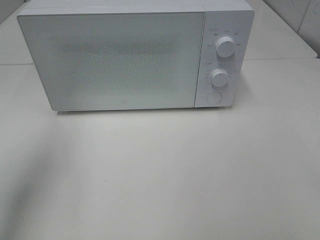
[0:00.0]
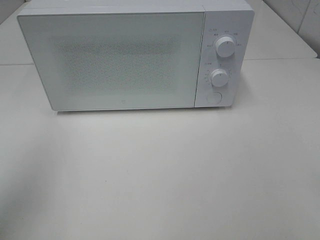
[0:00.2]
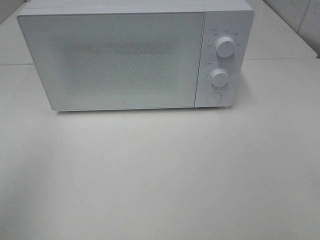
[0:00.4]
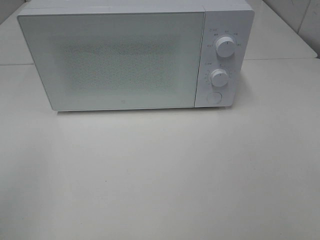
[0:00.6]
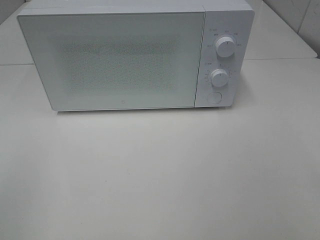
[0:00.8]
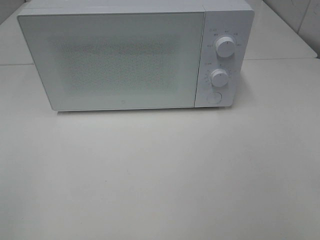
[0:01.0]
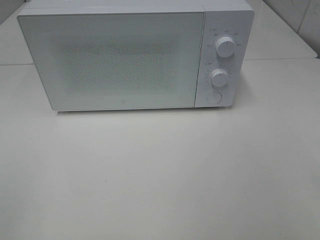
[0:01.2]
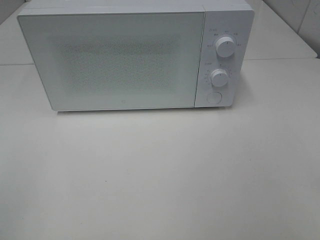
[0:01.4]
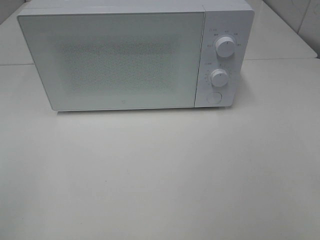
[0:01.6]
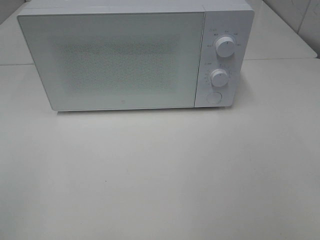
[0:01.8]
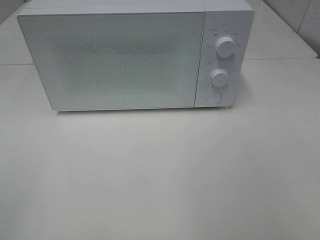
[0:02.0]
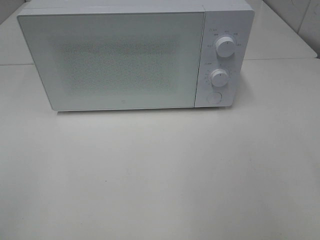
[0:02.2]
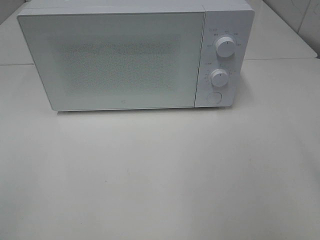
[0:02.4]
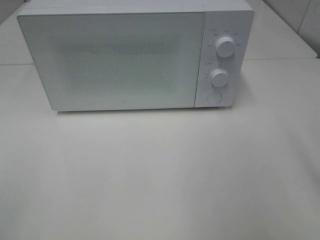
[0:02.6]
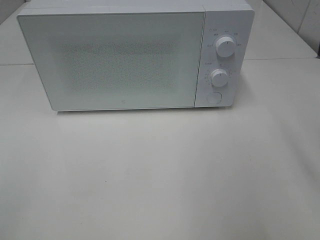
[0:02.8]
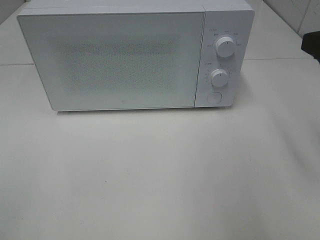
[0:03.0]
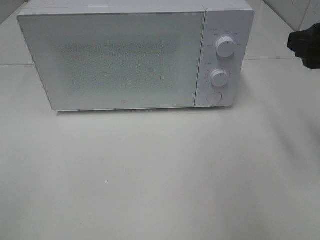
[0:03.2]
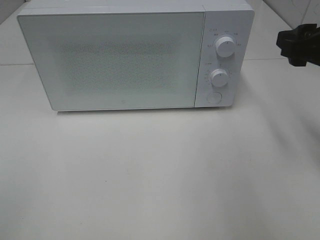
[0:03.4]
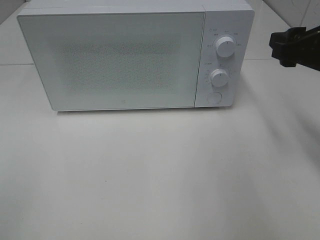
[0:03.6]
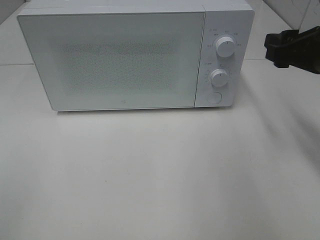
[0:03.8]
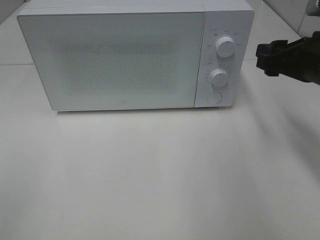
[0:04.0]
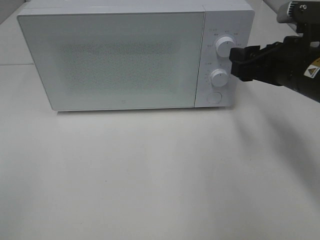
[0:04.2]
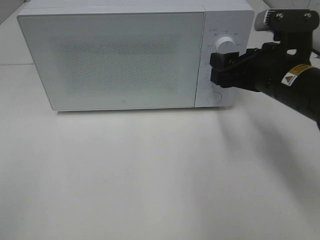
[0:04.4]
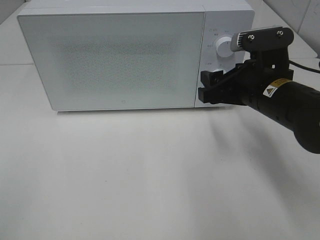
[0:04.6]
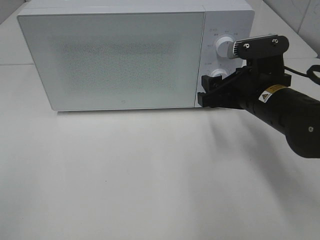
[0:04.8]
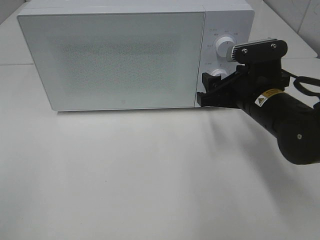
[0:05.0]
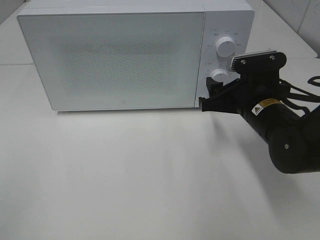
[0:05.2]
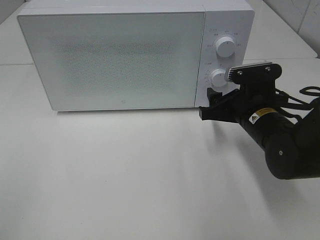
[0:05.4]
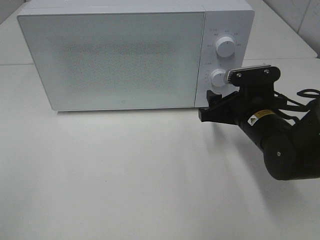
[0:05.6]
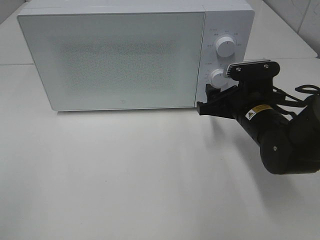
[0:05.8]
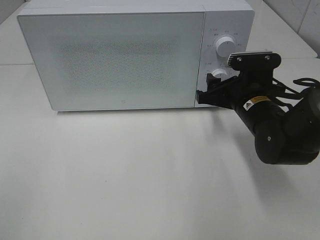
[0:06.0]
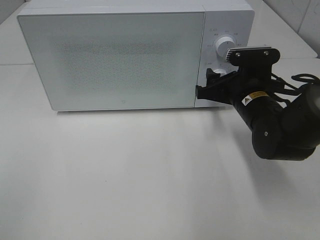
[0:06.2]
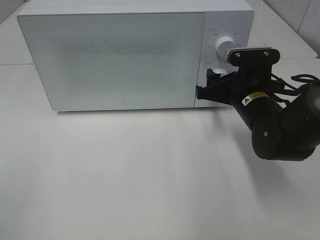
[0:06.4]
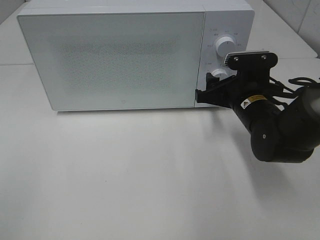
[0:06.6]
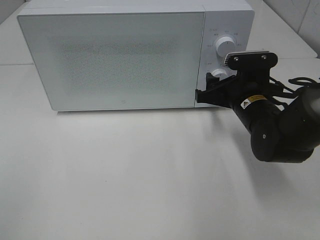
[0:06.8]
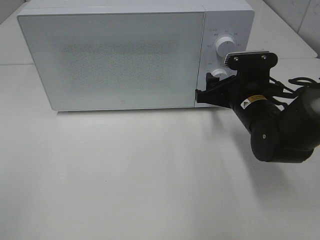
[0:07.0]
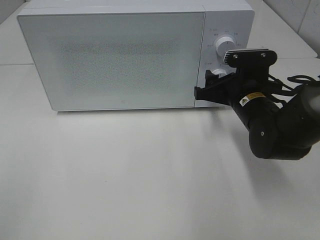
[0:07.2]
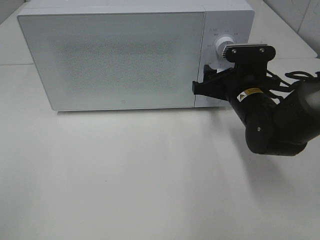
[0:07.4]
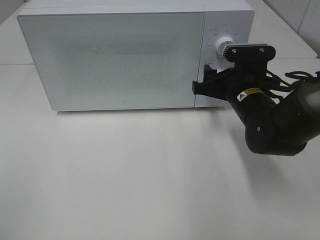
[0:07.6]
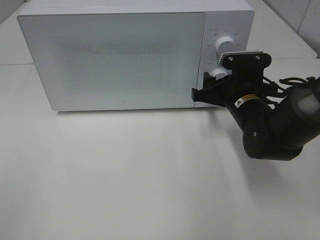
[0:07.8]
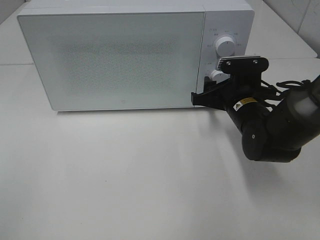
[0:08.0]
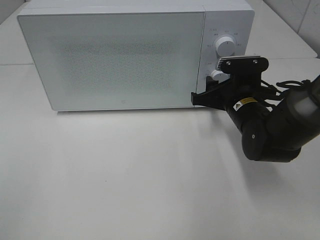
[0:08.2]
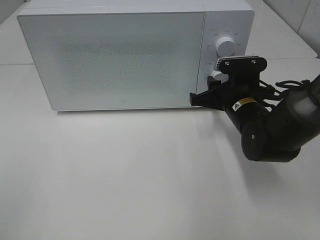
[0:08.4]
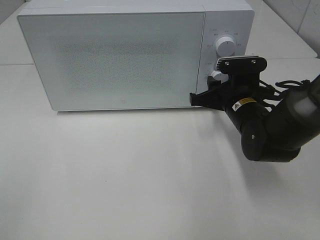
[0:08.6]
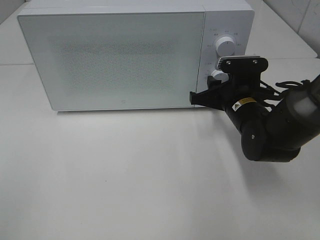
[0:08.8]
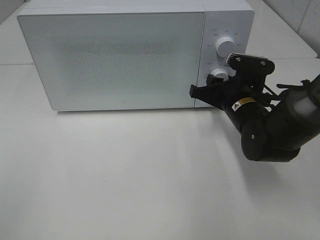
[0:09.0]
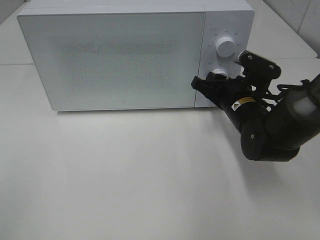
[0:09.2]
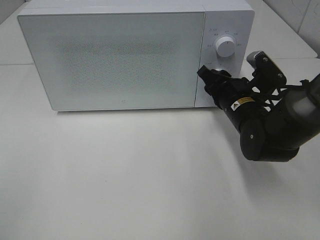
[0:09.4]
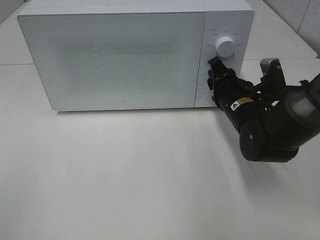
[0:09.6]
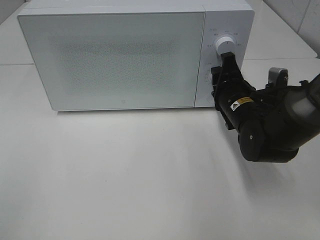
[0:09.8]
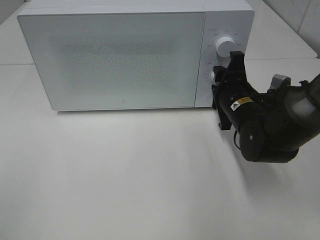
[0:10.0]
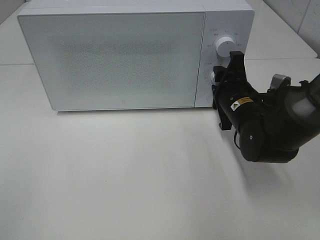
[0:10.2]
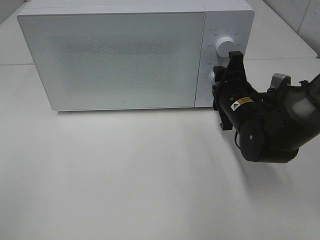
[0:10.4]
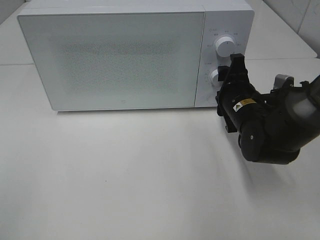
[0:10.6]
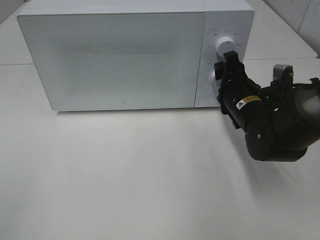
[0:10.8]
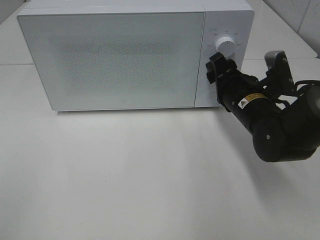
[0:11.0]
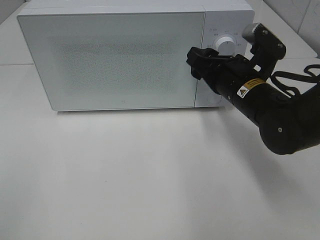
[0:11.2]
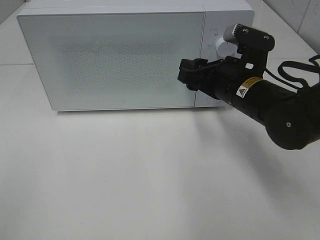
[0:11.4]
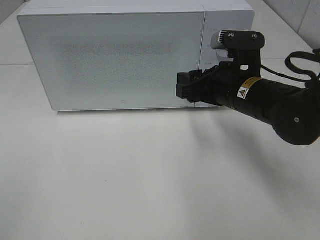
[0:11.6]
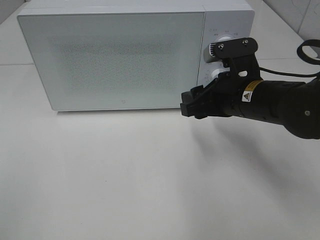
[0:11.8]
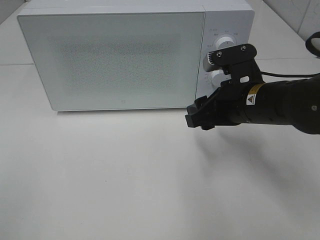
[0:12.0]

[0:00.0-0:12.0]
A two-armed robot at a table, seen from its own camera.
Task of the whole recording: Heat the burger.
Step, 0:00.0 to 0:10.4: Right hand: twist timer button.
0:00.0 to 0:01.6: The left gripper shifts about 20 cm backward.
0:01.6 to 0:03.0: The right gripper travels forward by some 20 cm.
0:03.0 to 0:04.4: The right gripper shifts some 15 cm downward, to the left and forward.
0:04.4 to 0:06.0: The right gripper shifts some 5 cm downward.
0:06.0 to 0:07.6: The grippers move only a little.
0:07.6 to 0:09.0: The right gripper closes its fingers.
0:10.4 to 0:12.0: The right gripper is displaced upward and backward by about 10 cm.

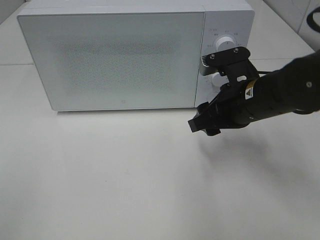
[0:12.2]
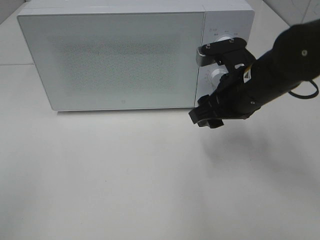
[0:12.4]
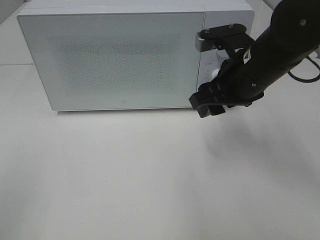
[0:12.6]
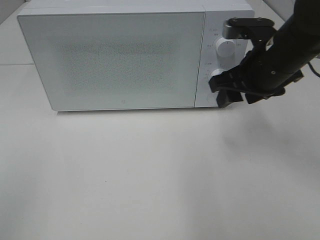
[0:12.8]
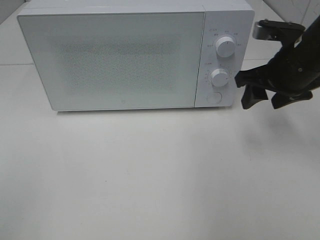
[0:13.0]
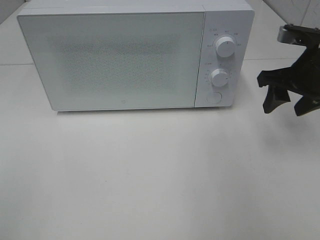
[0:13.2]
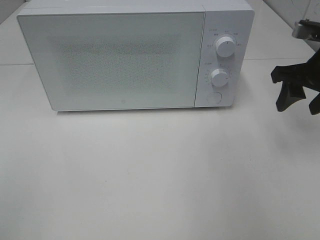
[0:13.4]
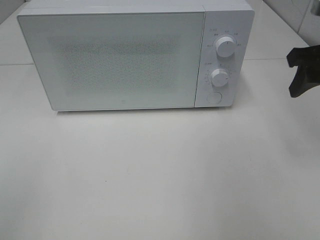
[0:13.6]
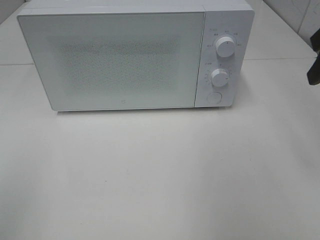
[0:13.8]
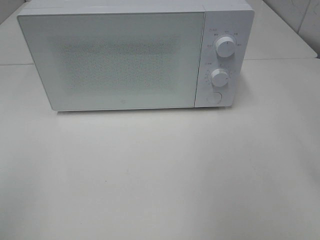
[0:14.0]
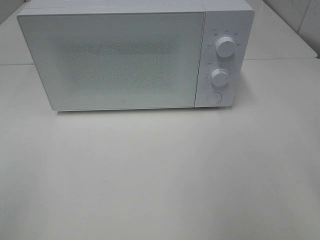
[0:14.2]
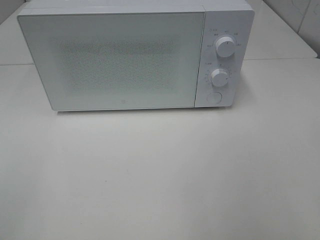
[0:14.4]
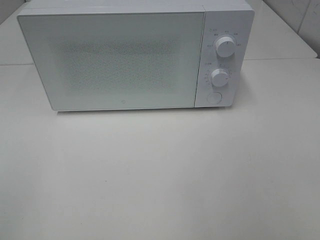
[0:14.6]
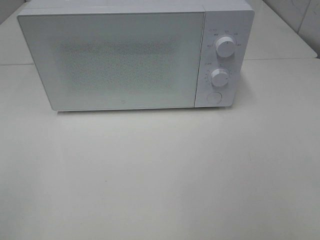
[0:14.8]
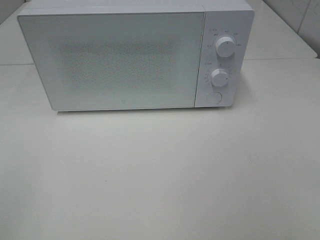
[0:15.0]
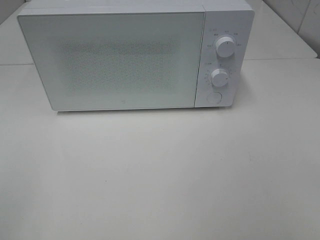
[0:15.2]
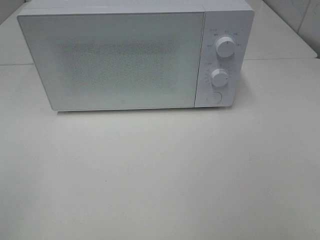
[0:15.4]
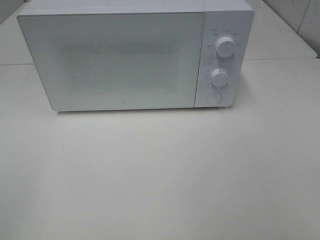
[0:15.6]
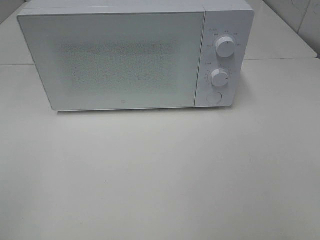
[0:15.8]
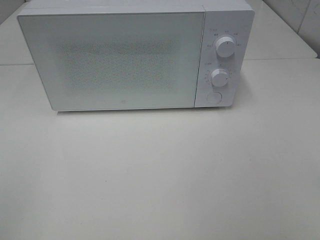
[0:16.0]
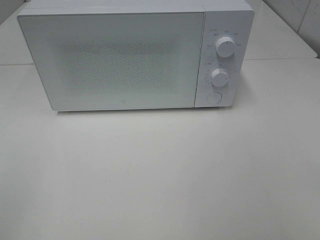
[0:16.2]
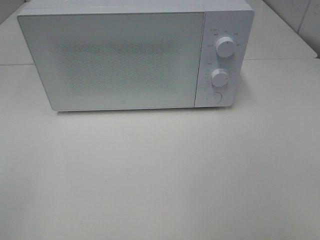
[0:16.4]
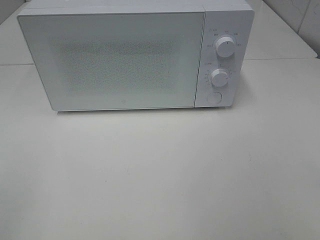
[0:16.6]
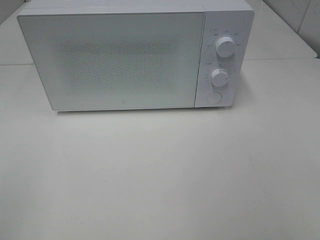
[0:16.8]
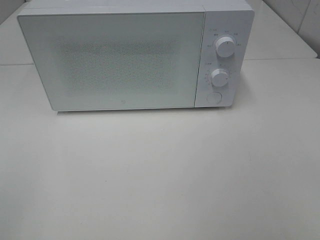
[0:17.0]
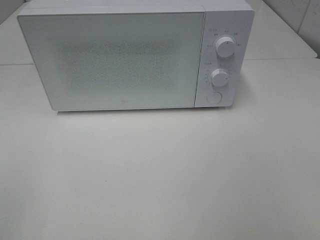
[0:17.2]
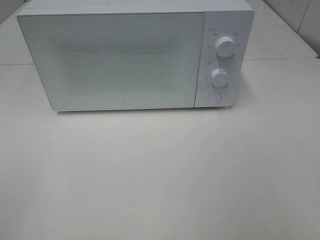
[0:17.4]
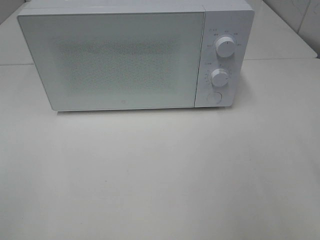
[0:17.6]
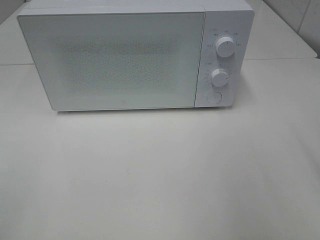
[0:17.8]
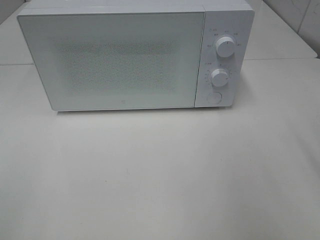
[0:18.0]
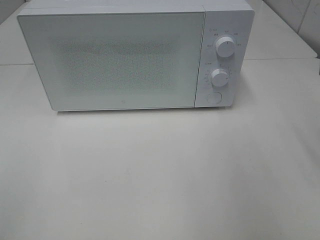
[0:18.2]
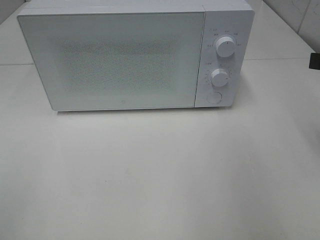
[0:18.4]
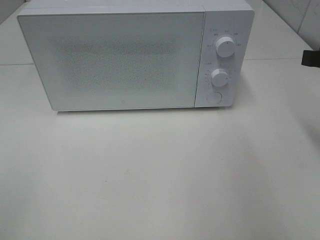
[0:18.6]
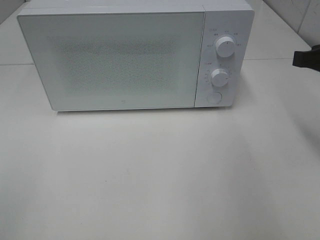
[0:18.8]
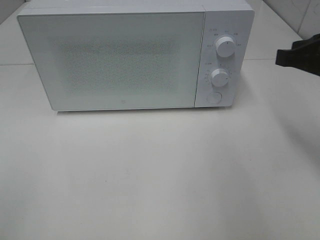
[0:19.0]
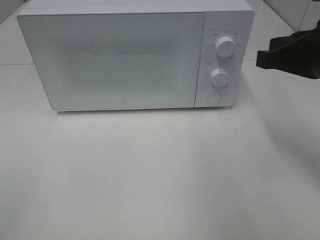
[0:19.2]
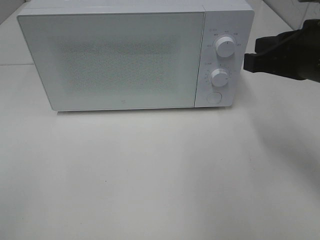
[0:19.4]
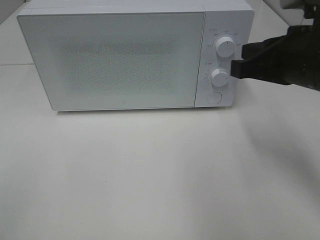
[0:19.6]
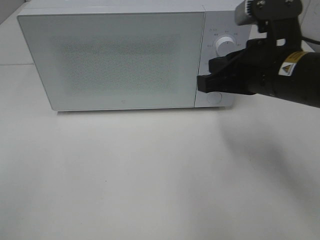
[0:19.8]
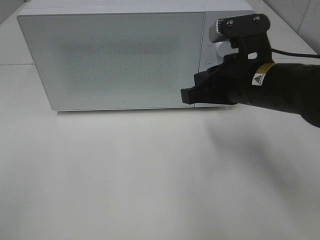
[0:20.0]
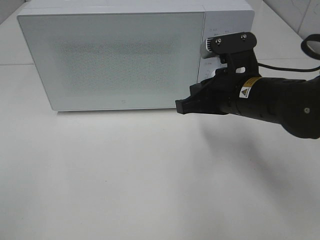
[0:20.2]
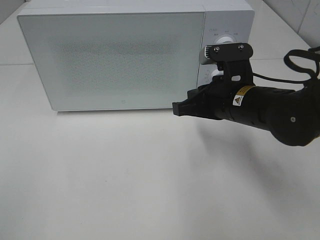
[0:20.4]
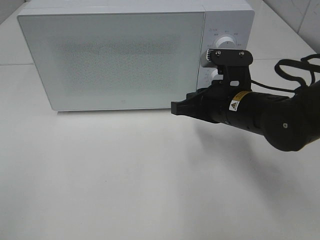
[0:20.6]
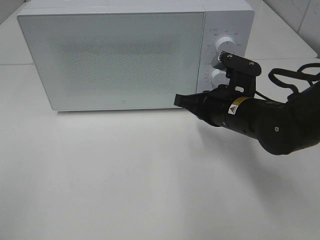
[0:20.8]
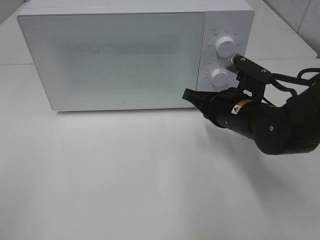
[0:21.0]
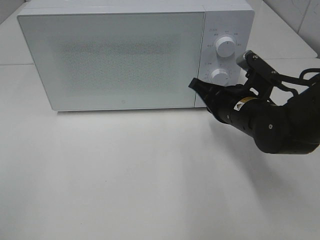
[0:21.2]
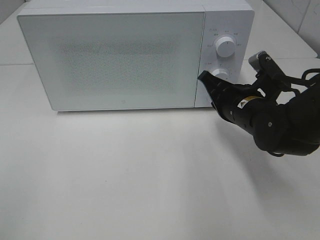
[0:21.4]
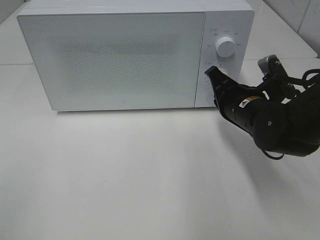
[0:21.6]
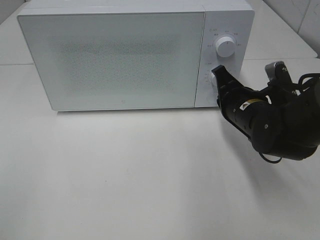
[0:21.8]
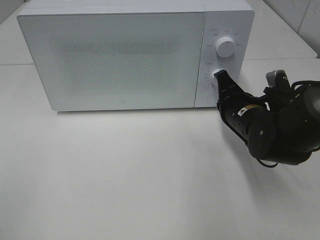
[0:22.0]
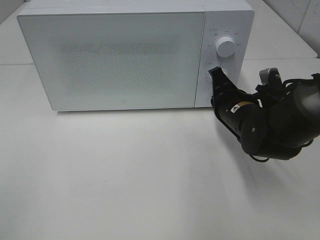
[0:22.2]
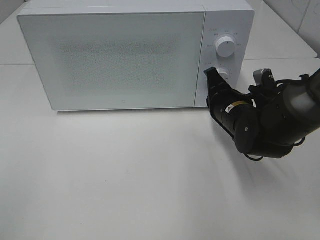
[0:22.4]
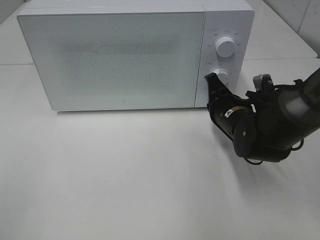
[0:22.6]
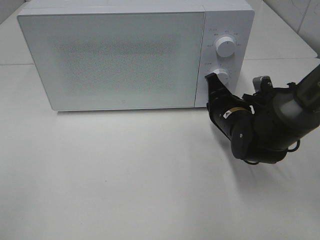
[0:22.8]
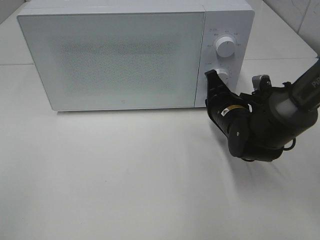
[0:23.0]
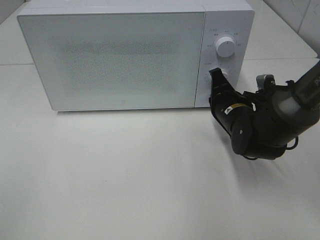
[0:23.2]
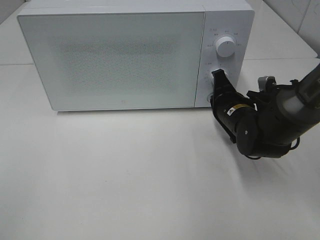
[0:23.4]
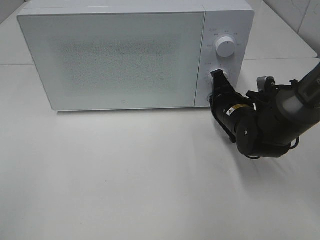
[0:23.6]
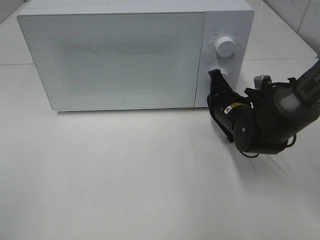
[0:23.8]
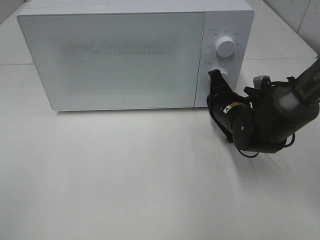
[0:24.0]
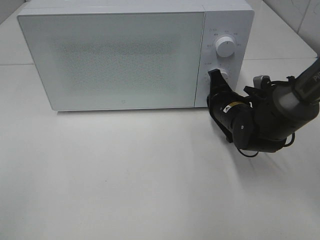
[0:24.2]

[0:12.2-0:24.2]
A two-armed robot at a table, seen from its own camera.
Task of the whole recording: Heat the burger.
0:12.2 to 0:13.8: The right gripper goes roughly 20 cm upward and to the right.
0:15.2 to 0:16.6: The two grippers keep their place.
0:18.2 to 0:19.8: The right gripper goes approximately 15 cm to the left, and closes.
0:19.8 to 0:21.2: The right gripper moves downward, approximately 10 cm.
0:22.6 to 0:24.2: The grippers stay close to where they were, moving slightly.
